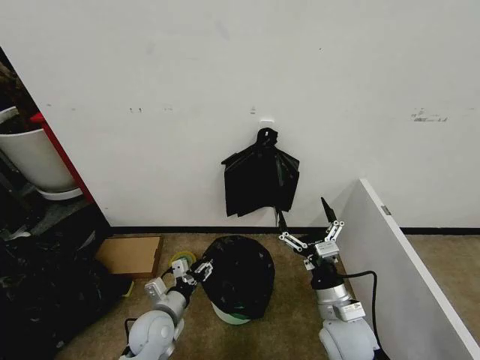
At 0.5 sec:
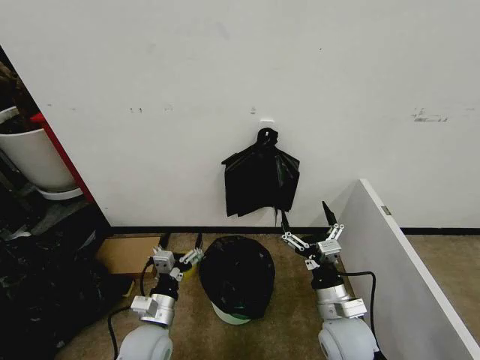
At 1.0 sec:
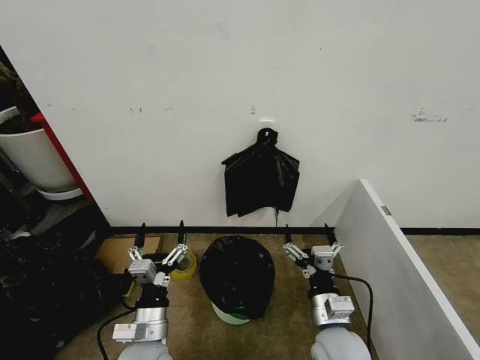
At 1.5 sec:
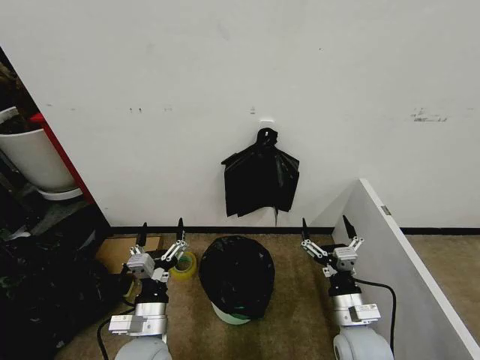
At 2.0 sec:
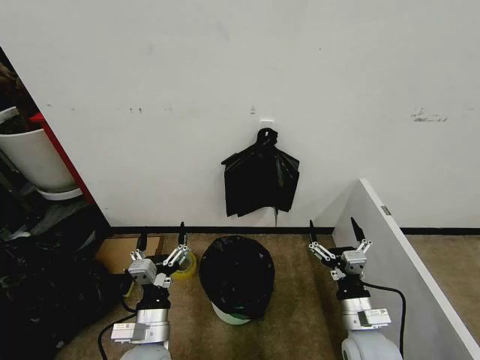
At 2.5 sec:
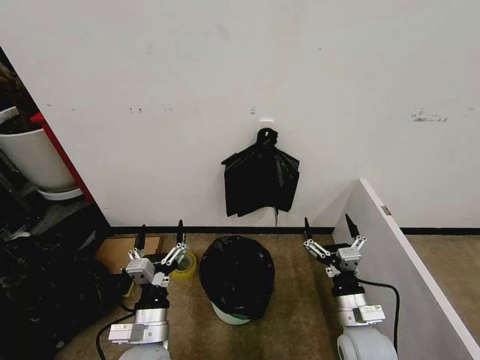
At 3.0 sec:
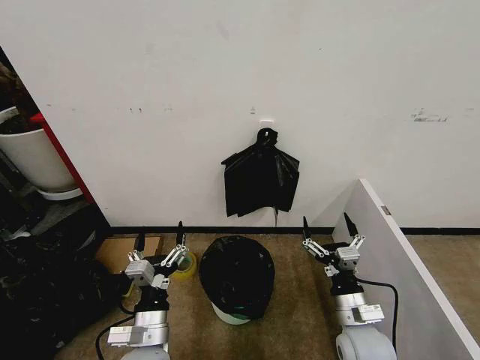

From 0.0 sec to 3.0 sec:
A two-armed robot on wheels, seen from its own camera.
Task of the whole recording: Place the garbage bag over the trash bin.
From 0.0 sec to 1.5 sec: The left gripper shifts approximately 10 cm upward and backward, and opens.
From 1.5 sec to 3.0 sec: The grippers stay close to where they were, moving slightly.

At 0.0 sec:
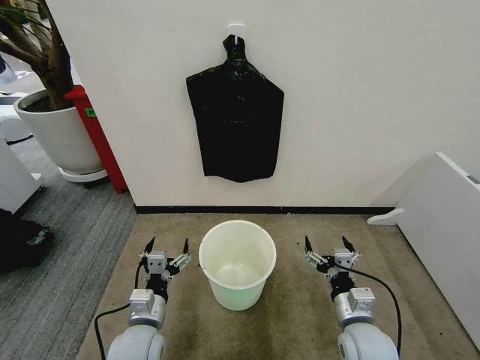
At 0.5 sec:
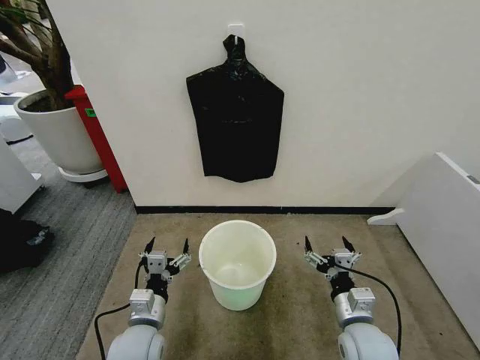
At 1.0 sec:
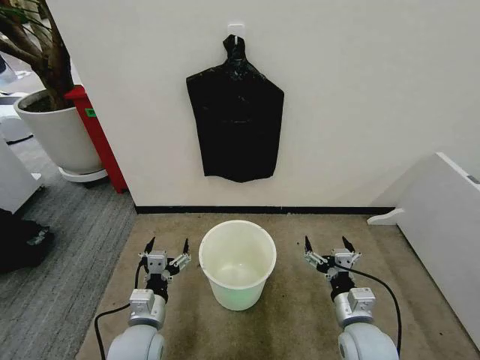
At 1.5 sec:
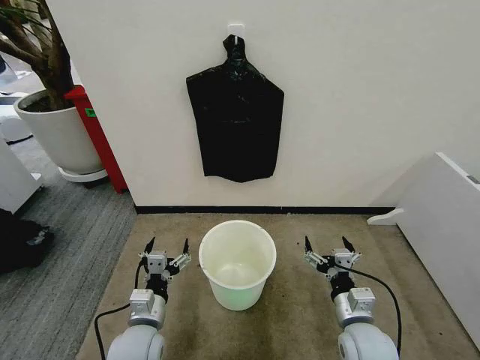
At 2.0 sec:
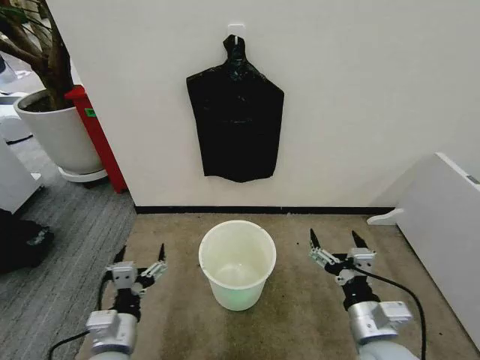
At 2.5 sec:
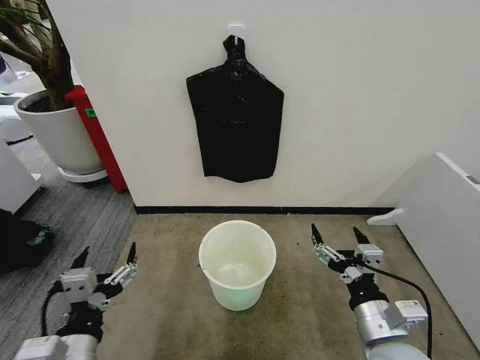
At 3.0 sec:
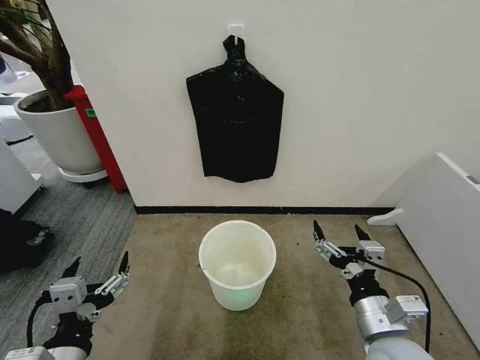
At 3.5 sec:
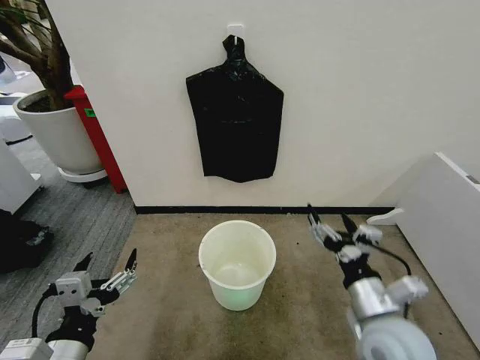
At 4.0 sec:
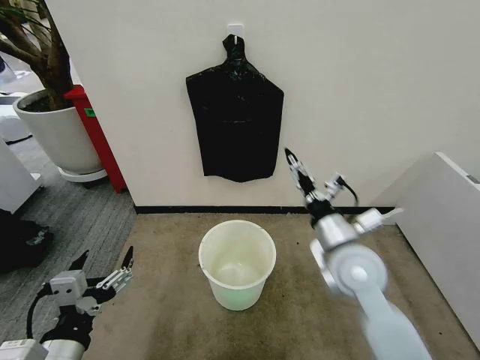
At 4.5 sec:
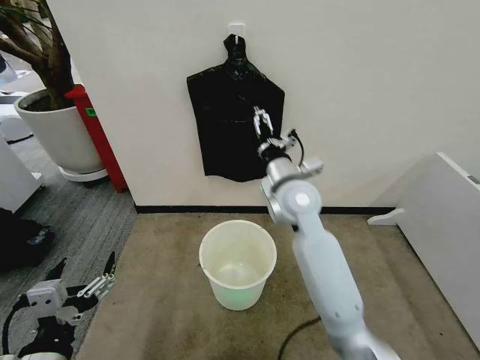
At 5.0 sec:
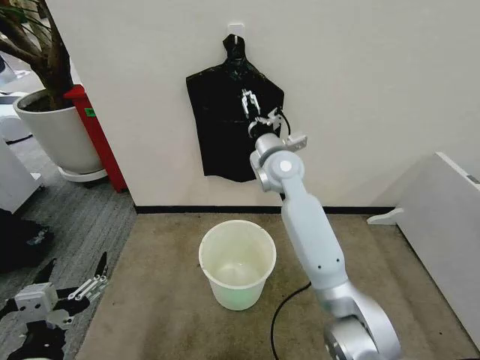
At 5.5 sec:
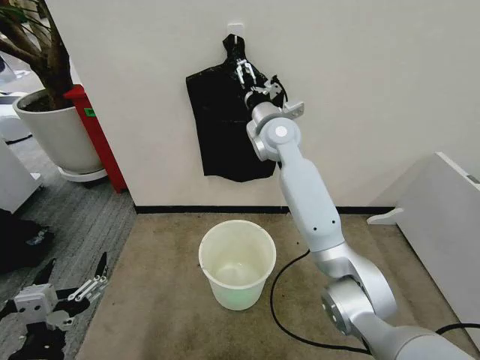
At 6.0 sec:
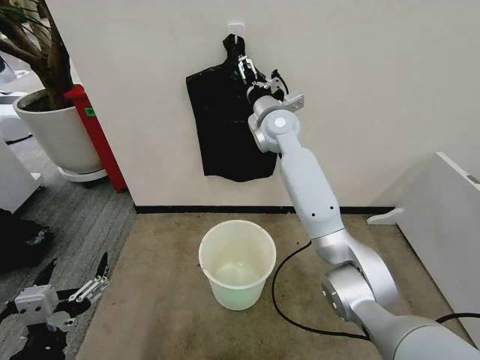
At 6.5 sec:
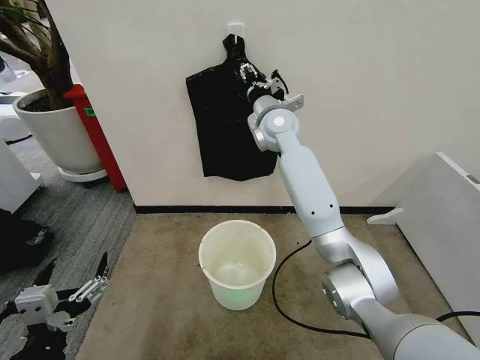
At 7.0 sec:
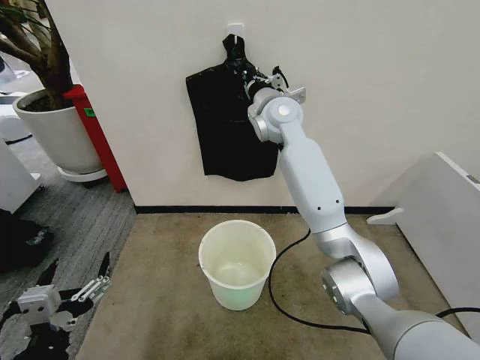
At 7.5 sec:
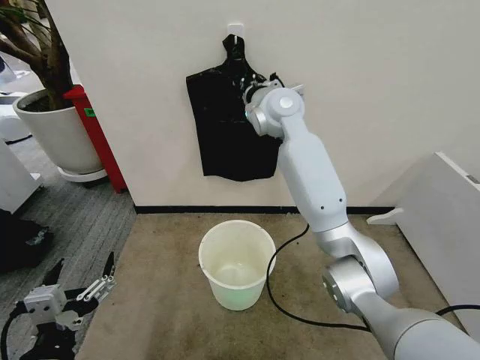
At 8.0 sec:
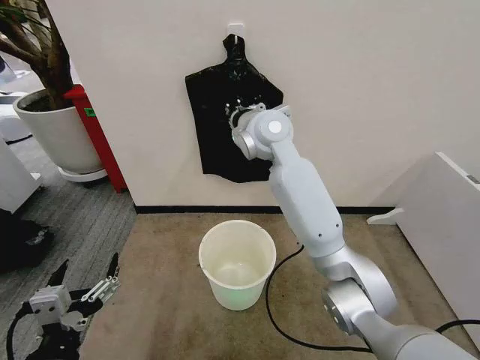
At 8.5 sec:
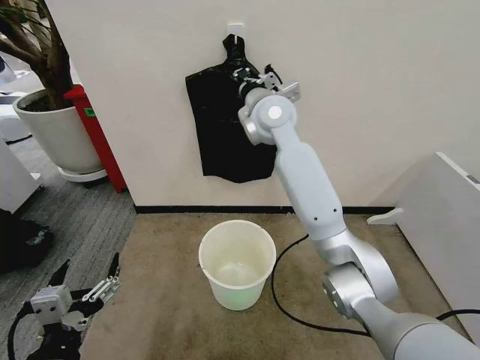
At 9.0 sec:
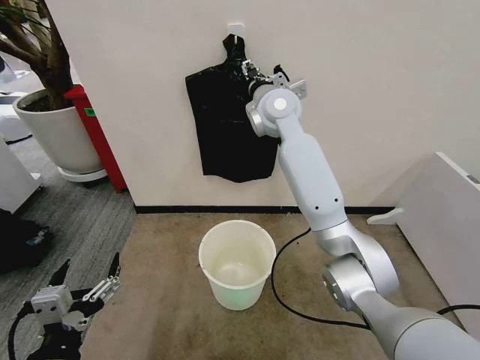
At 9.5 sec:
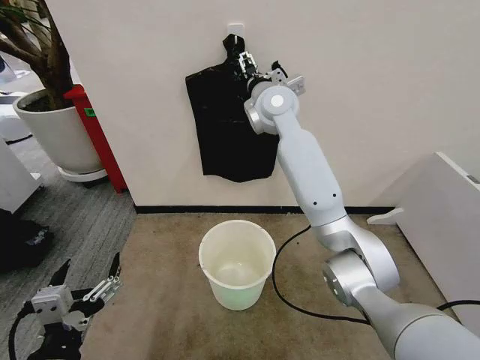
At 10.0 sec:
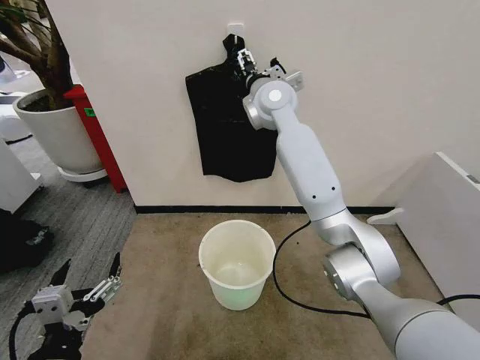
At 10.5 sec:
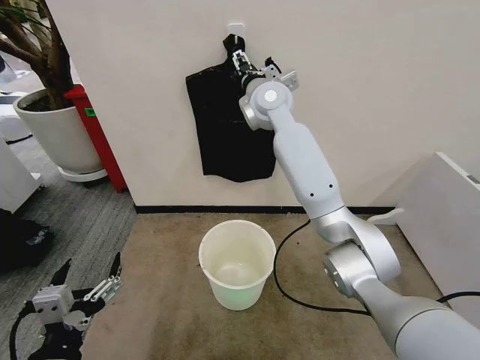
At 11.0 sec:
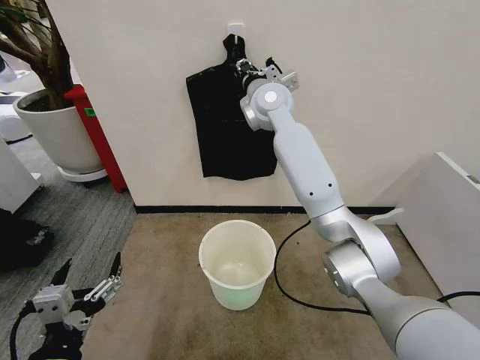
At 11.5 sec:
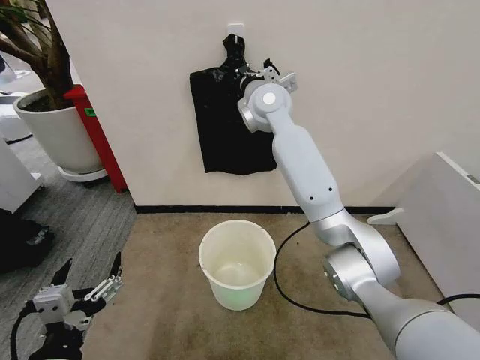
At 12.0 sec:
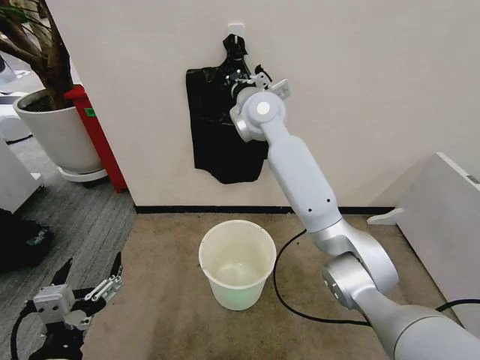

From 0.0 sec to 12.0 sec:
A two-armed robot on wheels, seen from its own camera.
Task of the whole recording: Place the garbage bag over the trash bin.
From 2.0 sec to 4.0 sec: The left gripper is displaced upward and backward by roughly 10 cm; the right gripper travels forward and upward by some 15 cm.
From 4.0 sec to 6.0 sec: The right gripper shifts roughly 30 cm forward, upward and to the left.
From 6.0 sec to 8.0 sec: The right gripper is displaced backward by some 10 cm, and closes its fingers.
From 8.0 sec to 10.0 sec: The right gripper moves forward, about 5 cm, and opens.
From 10.0 sec to 12.0 sec: The right gripper closes its fingers.

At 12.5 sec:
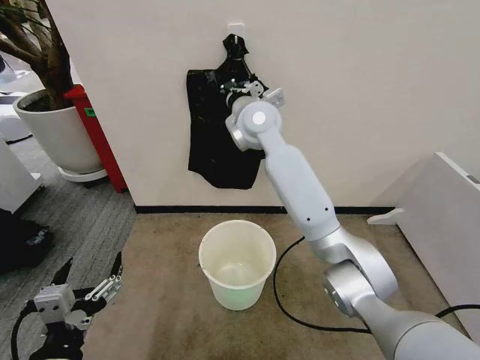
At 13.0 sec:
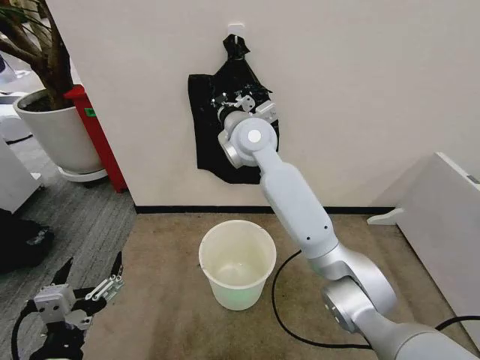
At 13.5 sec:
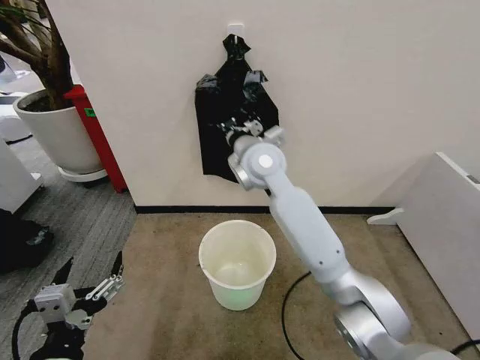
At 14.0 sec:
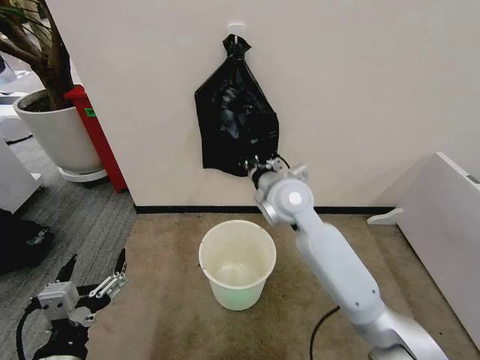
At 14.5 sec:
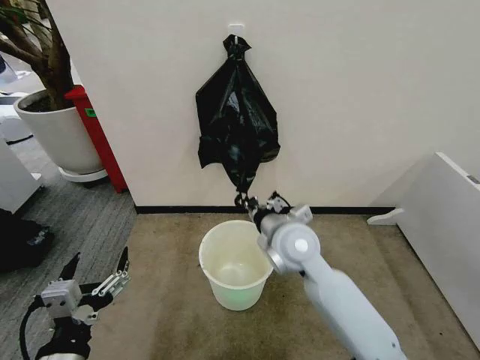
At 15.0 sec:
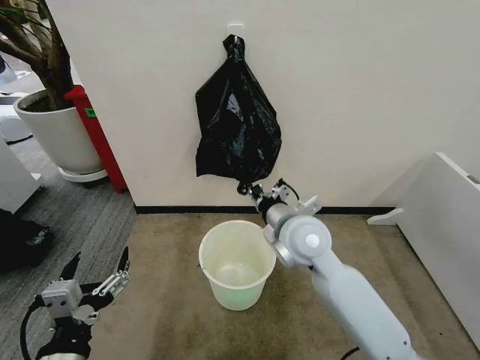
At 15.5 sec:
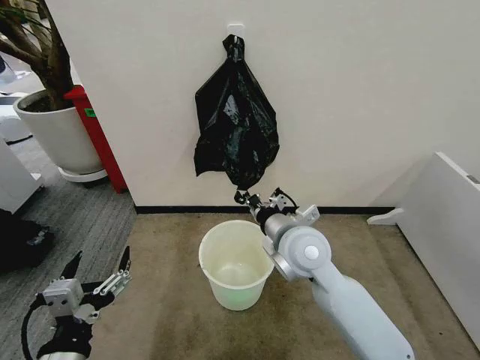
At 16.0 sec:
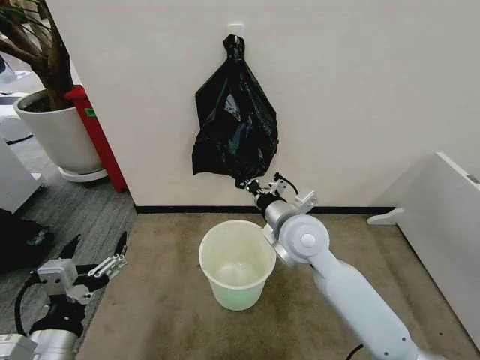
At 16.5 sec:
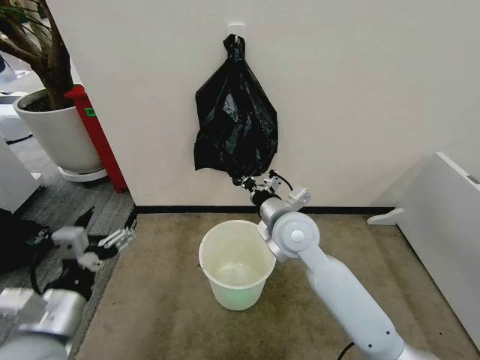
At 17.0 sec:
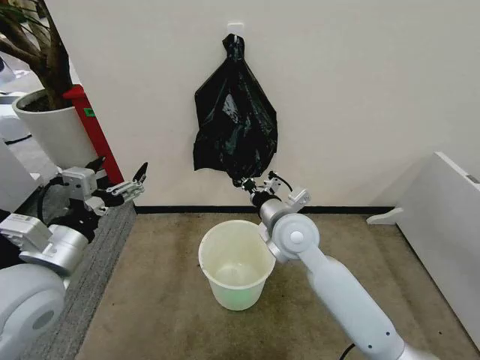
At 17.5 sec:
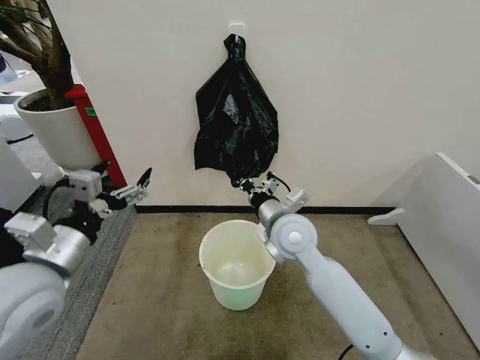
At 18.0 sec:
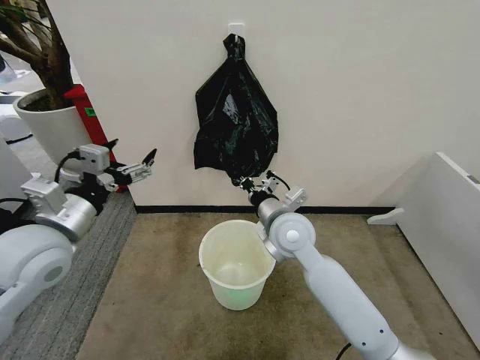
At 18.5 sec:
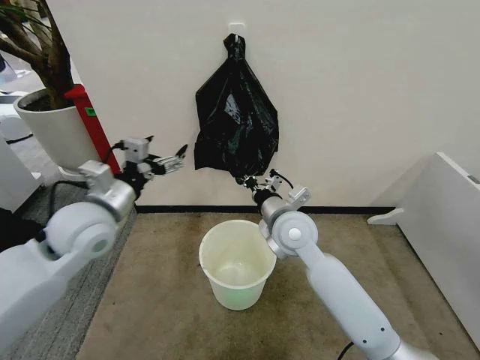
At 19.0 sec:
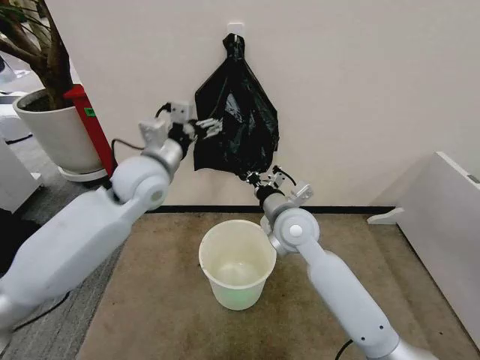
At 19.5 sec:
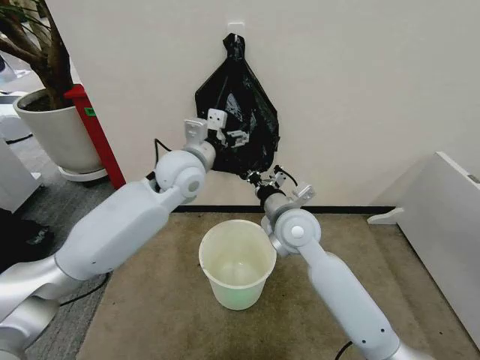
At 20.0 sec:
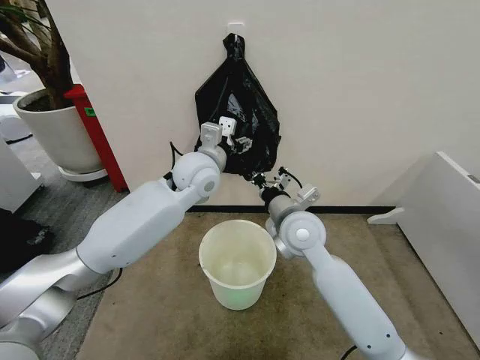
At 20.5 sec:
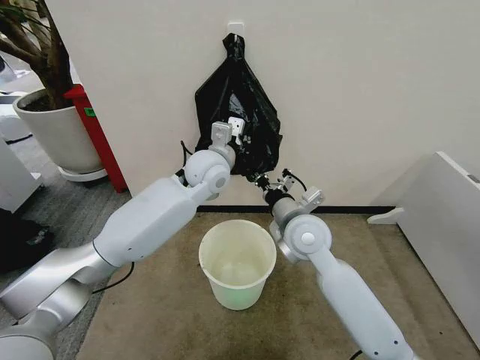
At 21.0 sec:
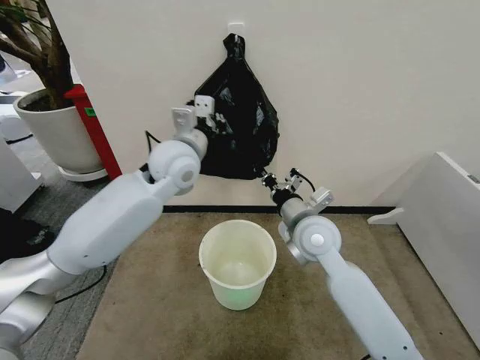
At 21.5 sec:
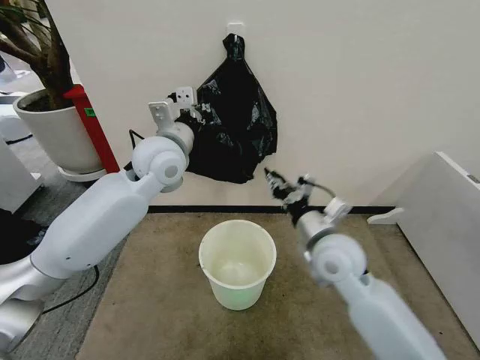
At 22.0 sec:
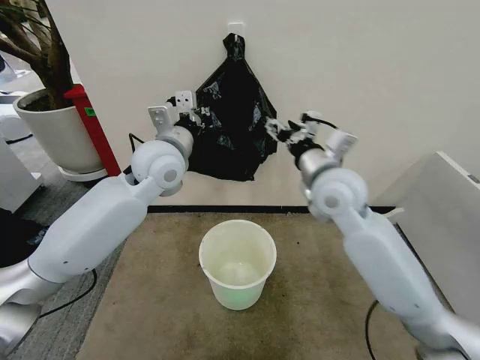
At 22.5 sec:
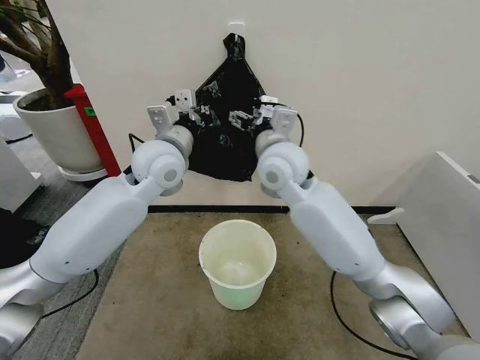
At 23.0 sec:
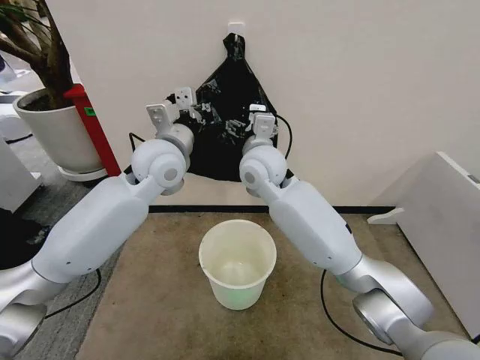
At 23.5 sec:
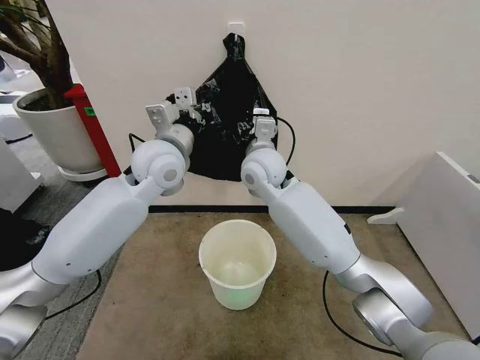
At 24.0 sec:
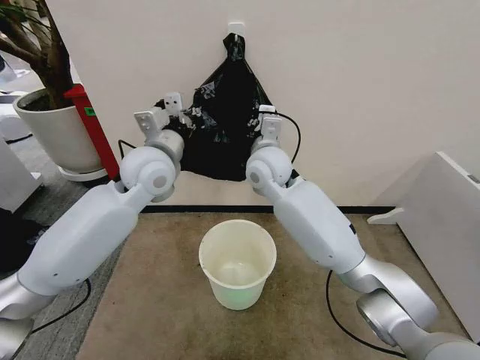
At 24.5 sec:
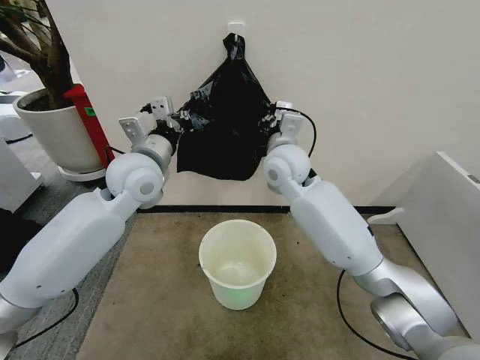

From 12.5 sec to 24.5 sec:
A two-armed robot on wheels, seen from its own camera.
Task of the whole recording: Place the garbage bag over the trash bin.
From 12.5 sec to 14.5 sec: The right gripper is displaced backward and downward by approximately 25 cm.
From 14.5 sec to 16.5 sec: The left gripper shifts roughly 10 cm forward.
From 16.5 sec to 18.5 sec: The left gripper heads forward, covering approximately 20 cm.
From 18.5 sec to 20.5 sec: The left gripper is displaced to the right and forward by about 25 cm, and closes up.
From 20.5 sec to 22.5 sec: The right gripper heads upward, forward and to the left, covering about 15 cm, and opens its fingers, while the left gripper travels to the left by about 10 cm.
From 22.5 sec to 24.5 sec: The right gripper ends up approximately 5 cm from where it was, and closes.
